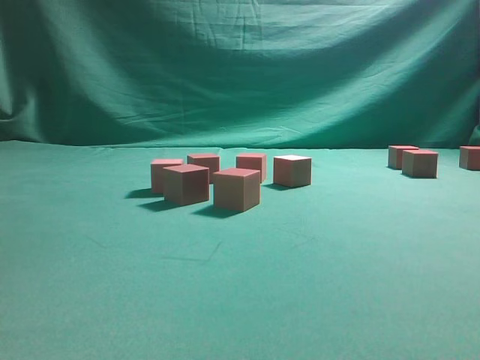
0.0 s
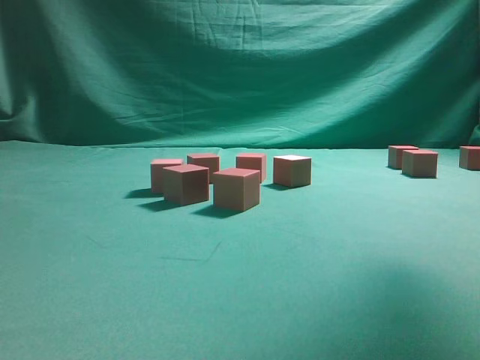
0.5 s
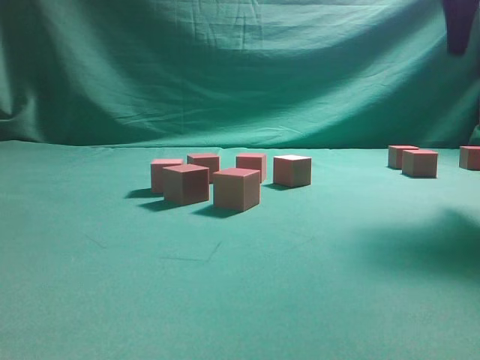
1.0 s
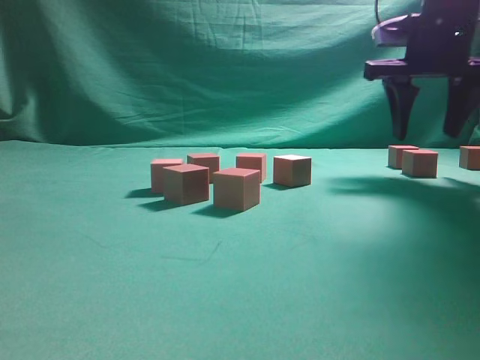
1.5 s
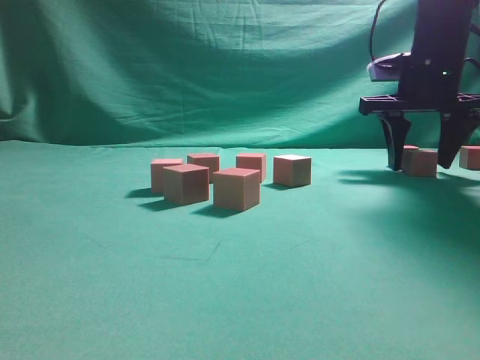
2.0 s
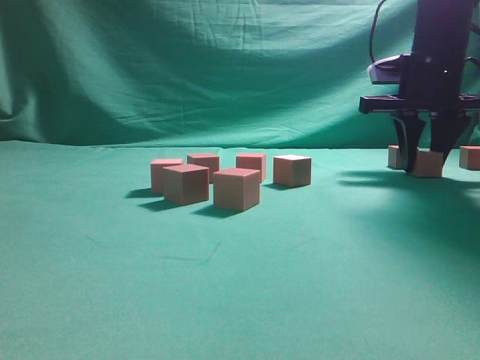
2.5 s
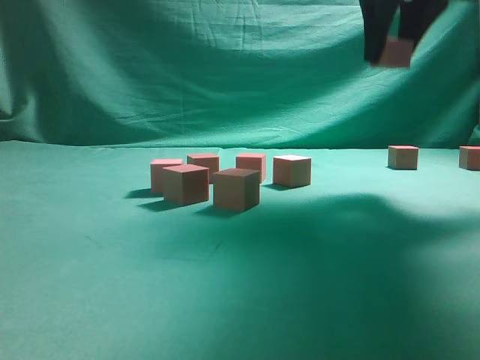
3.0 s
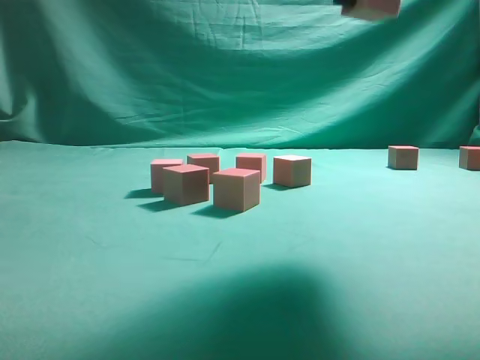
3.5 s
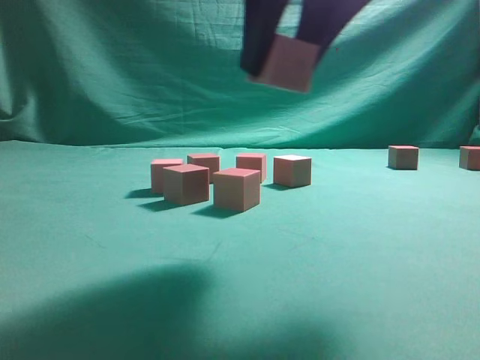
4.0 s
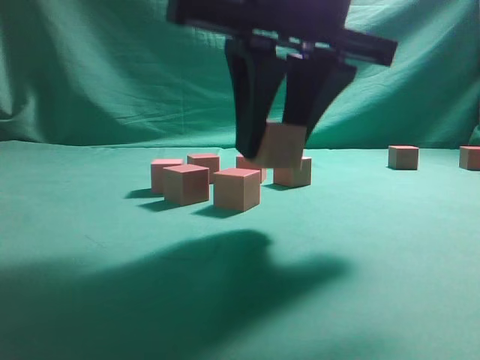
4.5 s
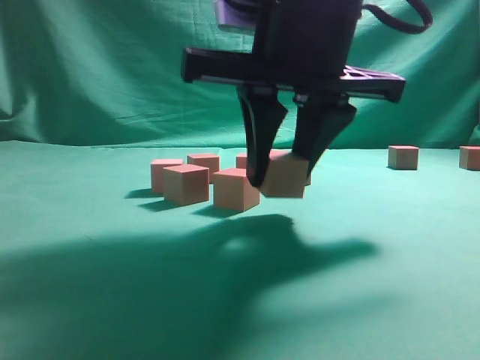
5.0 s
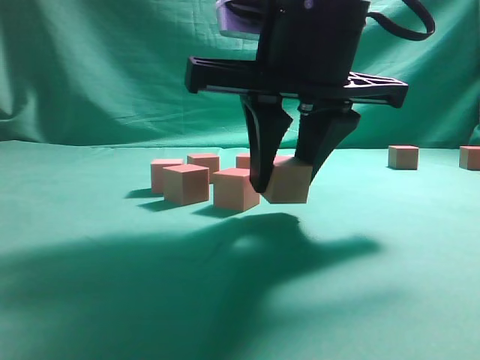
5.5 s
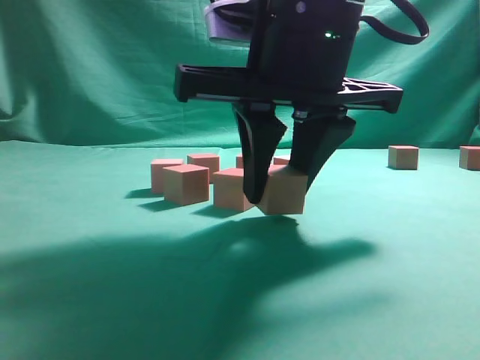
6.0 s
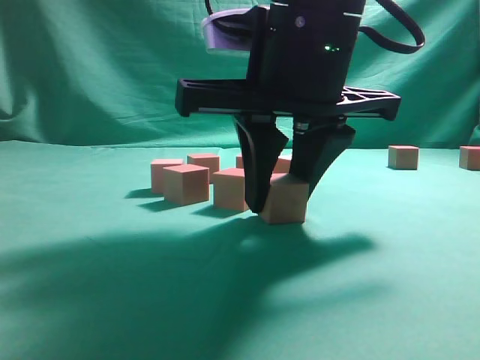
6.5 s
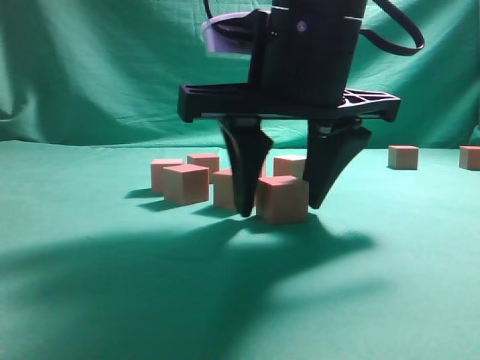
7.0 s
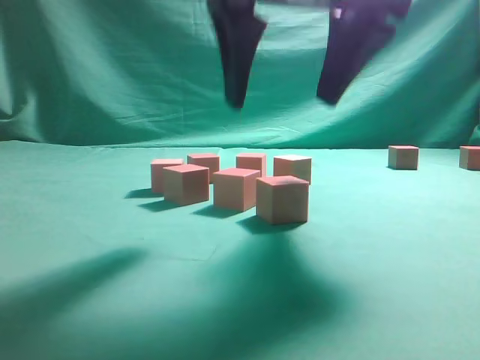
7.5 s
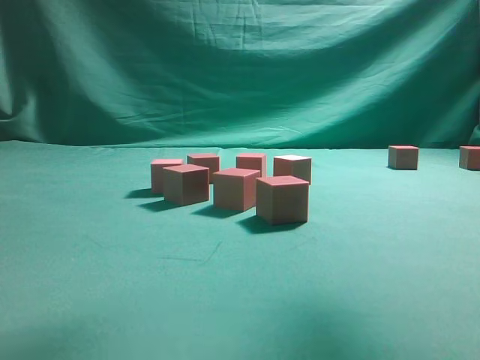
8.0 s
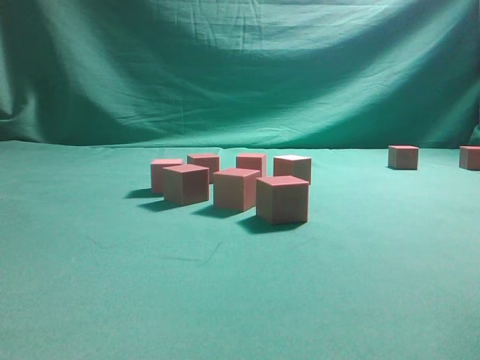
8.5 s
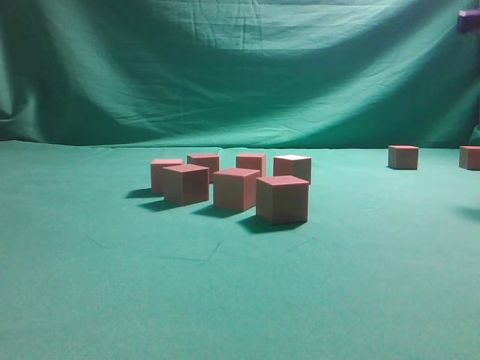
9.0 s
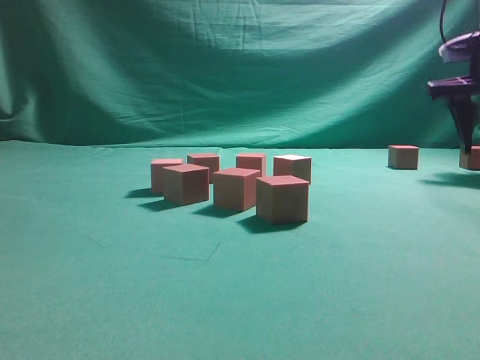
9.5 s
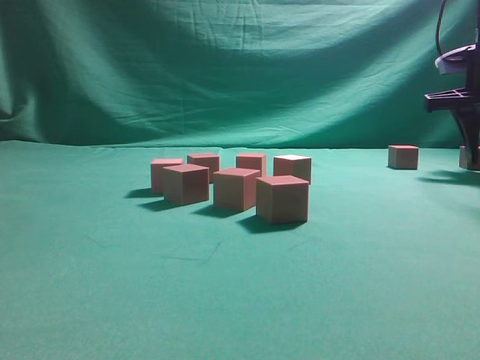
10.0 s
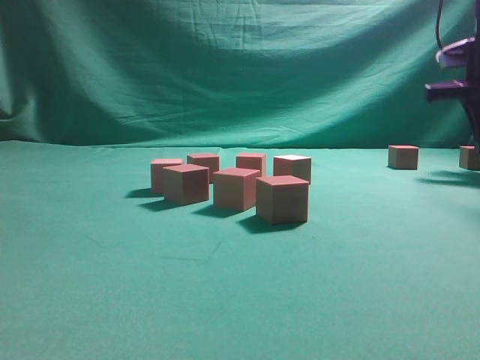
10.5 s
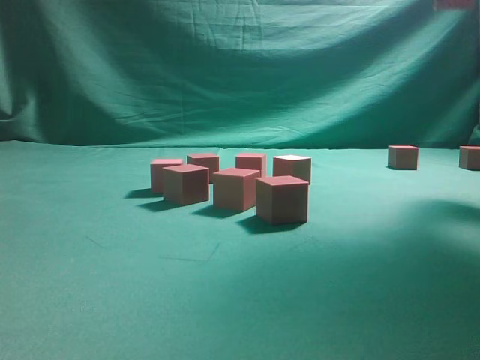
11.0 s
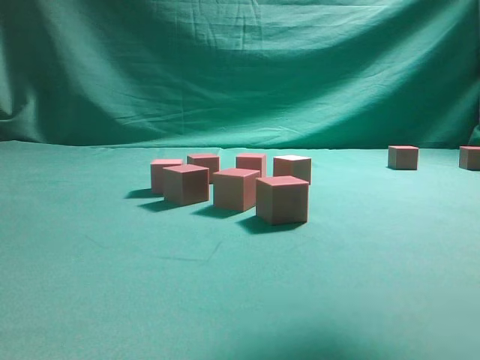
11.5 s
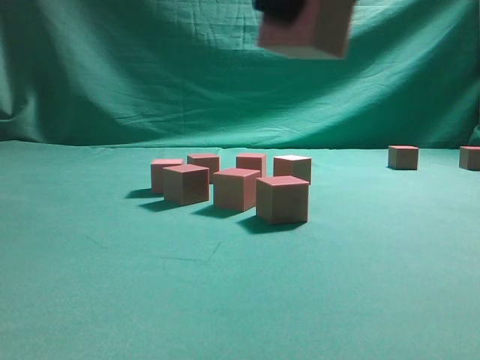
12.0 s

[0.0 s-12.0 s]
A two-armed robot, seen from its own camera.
Task of the whole recording: pick up the multiple cubes in two columns one by one and place them in another position on the table.
Step, 0.0 to 2.5 s: Pick up the block on the table.
Step, 3.0 to 7.5 s: Place the block at the correct position to assemble the letter S.
Step, 8.0 to 10.5 s: Pick up the block on the table.
0.0 to 2.0 s: The right gripper is displaced downward, to the right and forward by about 35 cm.
2.0 to 4.0 s: The right gripper heads backward and to the left, covering roughly 30 cm, and closes.
4.0 to 6.0 s: The right gripper shifts about 10 cm downward.
6.0 to 8.0 s: The right gripper shifts some 20 cm upward and to the right, and opens up.
8.0 to 10.0 s: The right gripper is displaced forward, to the right and downward by about 30 cm.
10.0 to 12.0 s: The right gripper goes about 35 cm backward and to the left.

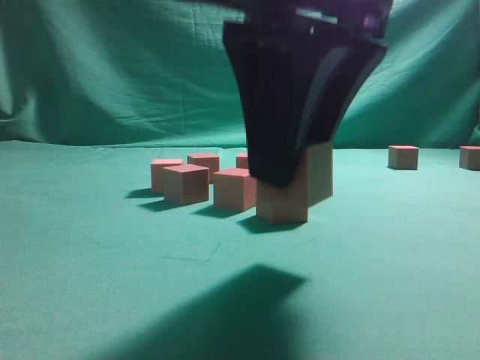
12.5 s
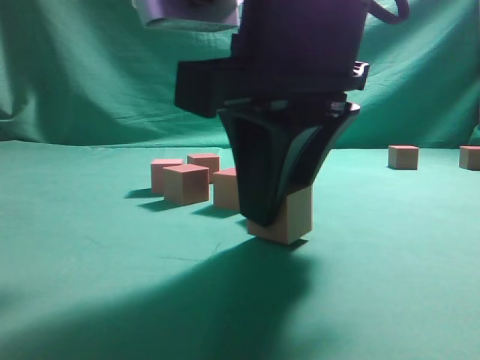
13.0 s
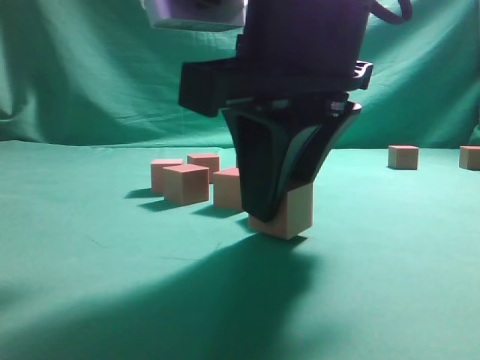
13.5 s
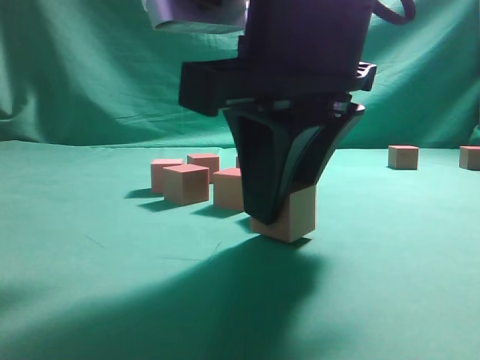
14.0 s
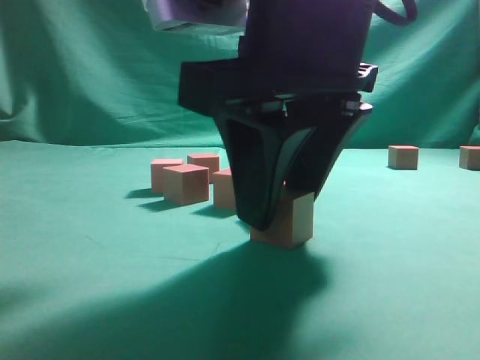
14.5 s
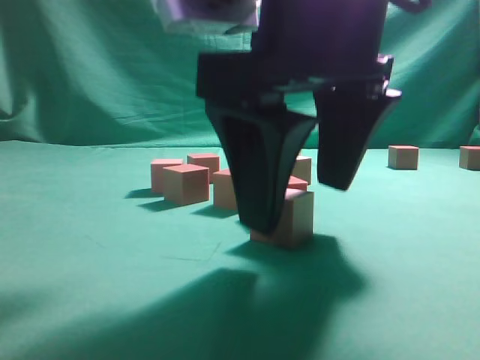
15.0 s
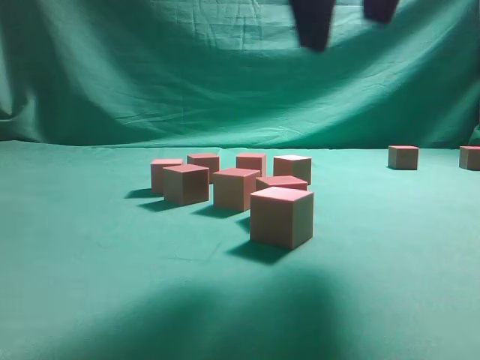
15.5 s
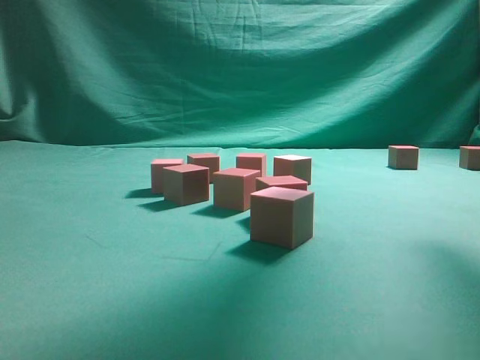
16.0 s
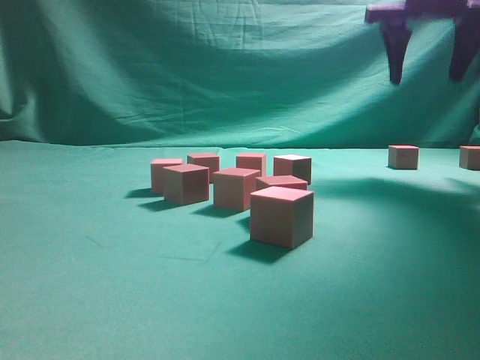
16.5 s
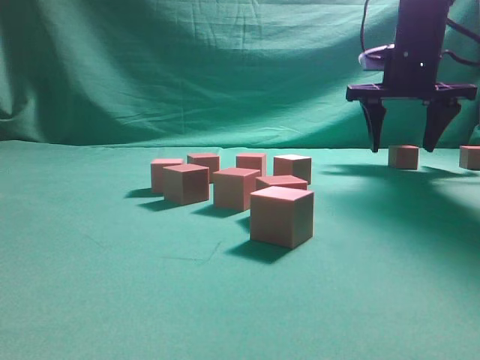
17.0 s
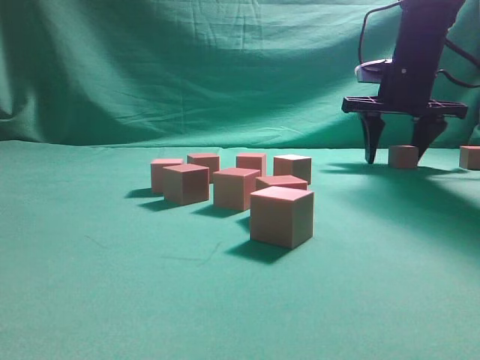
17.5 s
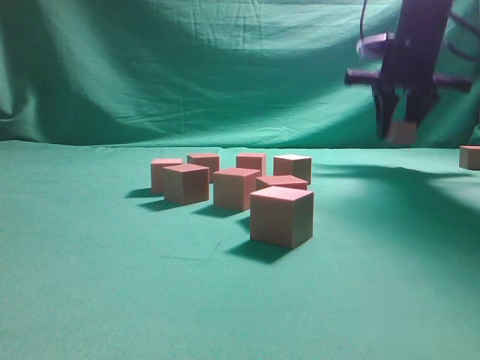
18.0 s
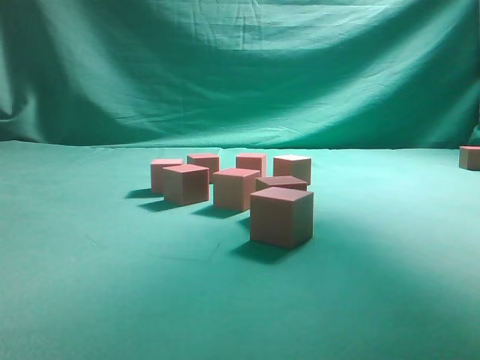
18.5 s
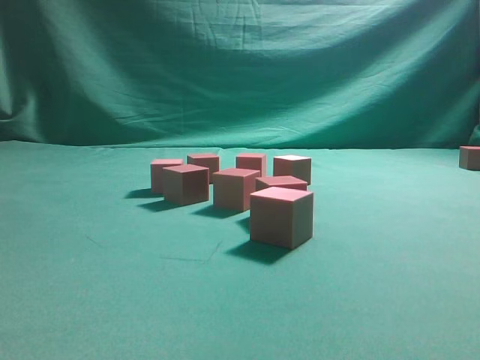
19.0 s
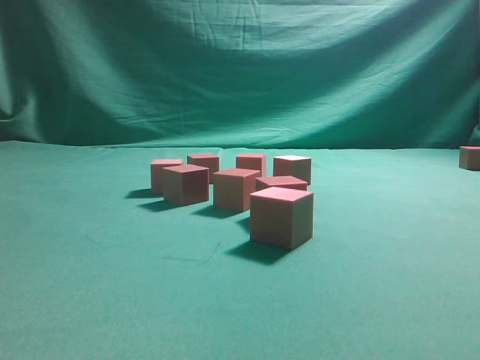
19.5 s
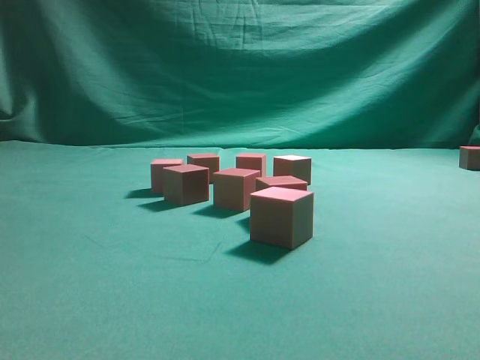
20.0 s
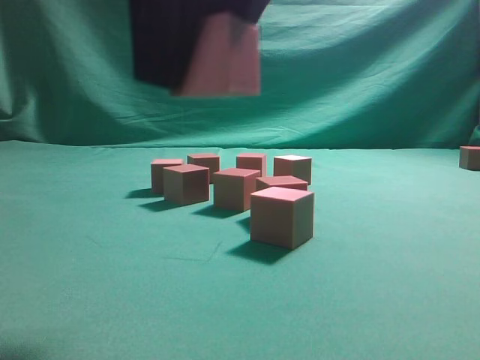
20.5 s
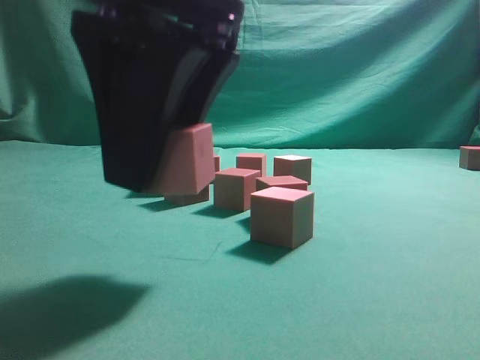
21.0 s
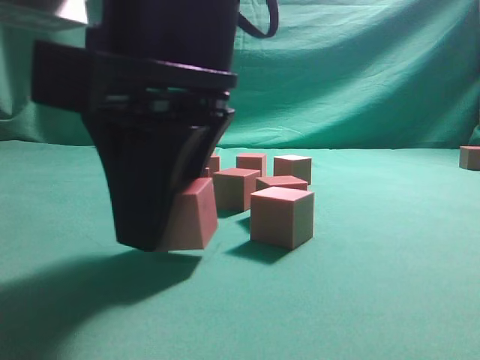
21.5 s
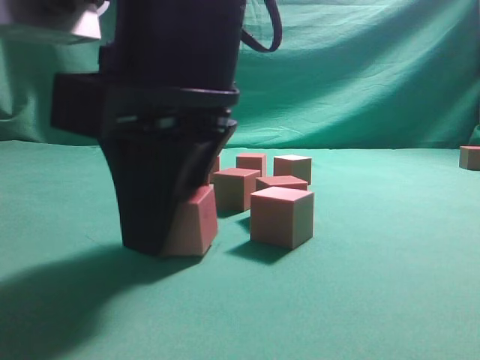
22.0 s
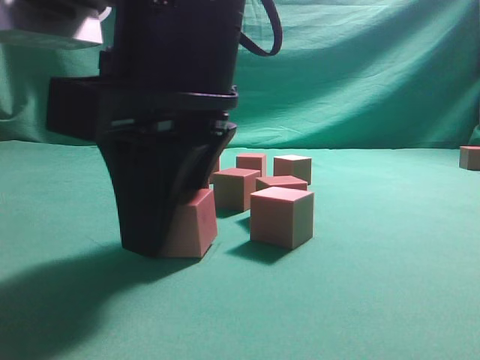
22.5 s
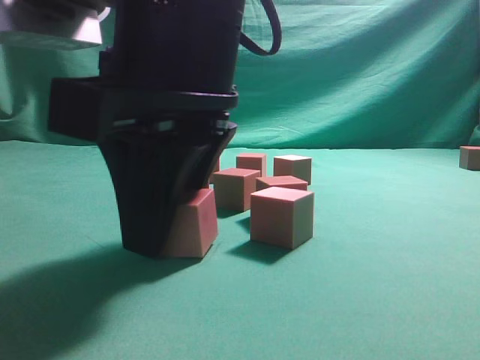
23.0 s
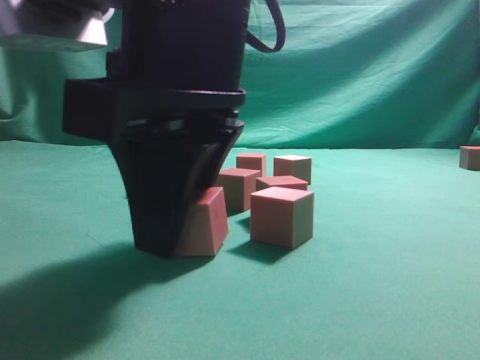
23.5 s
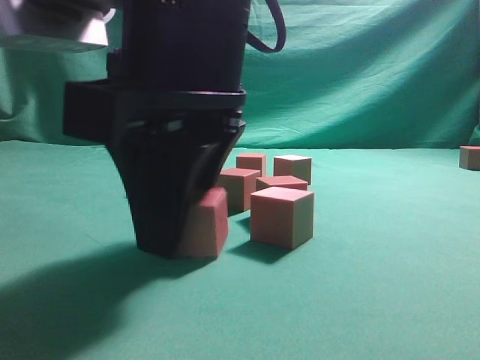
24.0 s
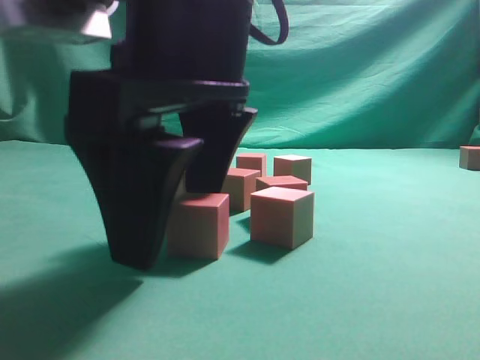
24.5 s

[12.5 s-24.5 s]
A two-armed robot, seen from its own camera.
Task of the whole recording: pick up the multiple cubes in two columns one by one and place them in another position on the table.
Step, 12.5 to 15.0 s: Place the block at the correct position to assemble the letter S.
Step, 15.5 to 18.0 s: Pick up the block on the table.
14.5 to 16.5 s: The right gripper heads forward and to the right, covering about 30 cm.
16.5 to 18.5 s: The right gripper heads upward, covering approximately 20 cm, and closes up.
18.5 to 20.5 s: The right gripper goes about 40 cm backward, to the left and downward.
20.5 to 22.5 s: The right gripper heads downward, covering about 10 cm.
22.5 to 24.5 s: The right gripper opens.

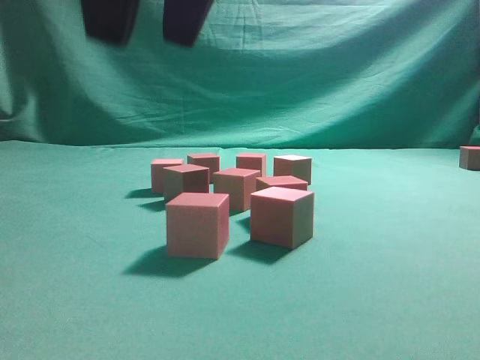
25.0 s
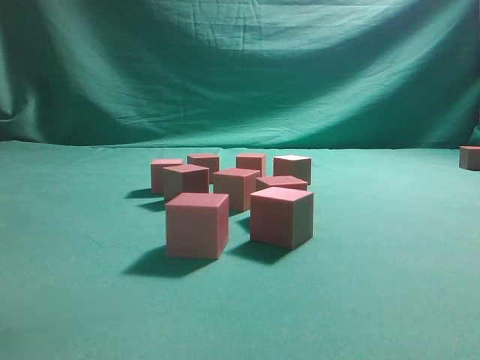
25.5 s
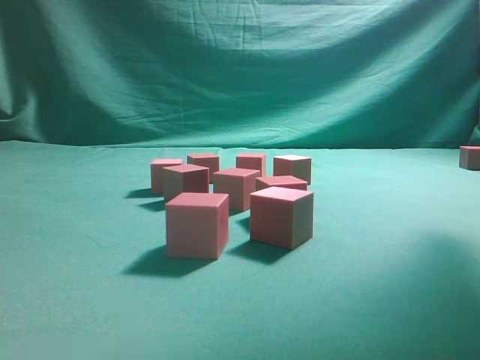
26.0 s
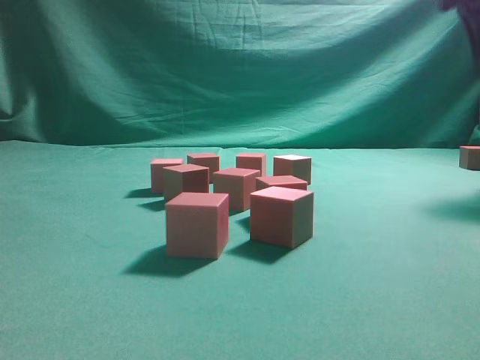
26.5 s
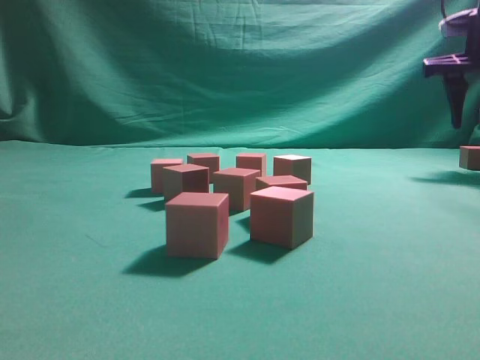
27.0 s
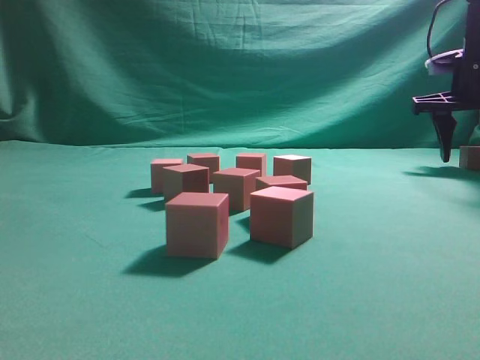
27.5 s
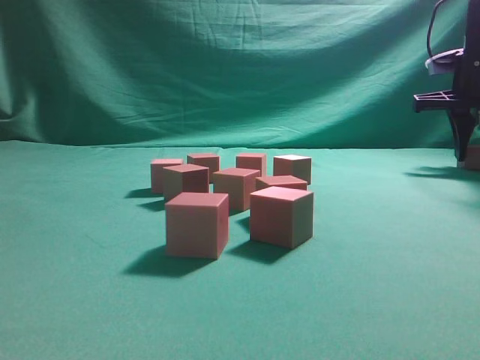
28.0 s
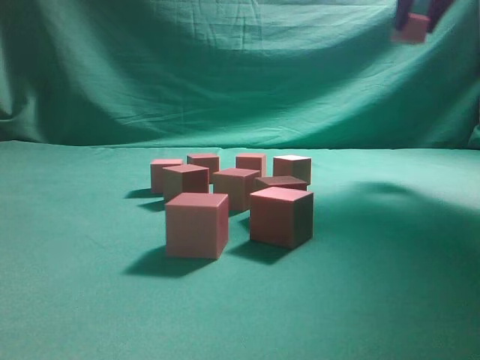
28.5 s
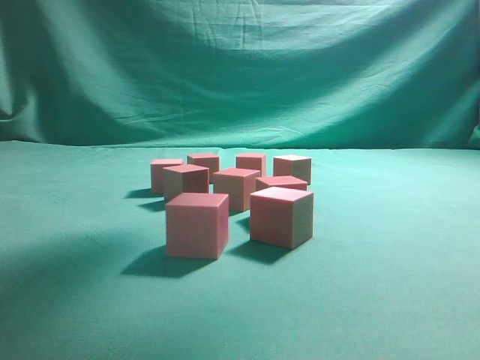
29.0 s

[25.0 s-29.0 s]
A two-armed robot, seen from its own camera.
Task of the whole recording: pick up the multiple cubes in two columns one by one and place them in another position on the table.
Step, 25.0 to 28.0 s: Pick up the block on the table.
25.0 to 27.0 s: The right gripper heads to the right and forward, covering roughly 40 cm.
27.0 to 29.0 s: The right gripper heads to the left, upward and backward, covering some 30 cm, and closes.
